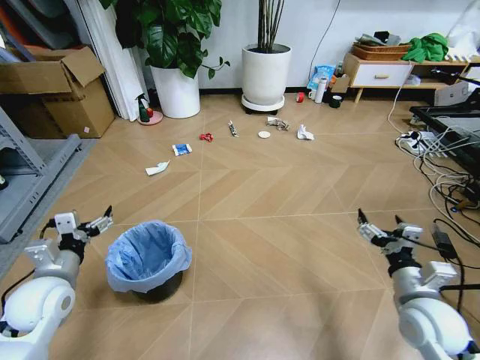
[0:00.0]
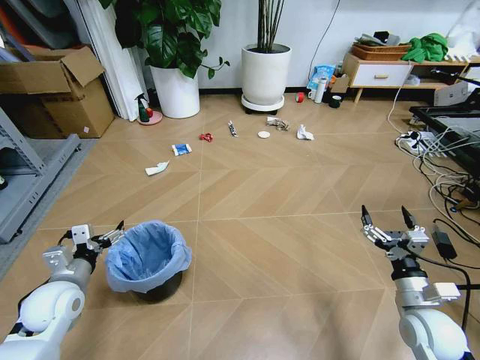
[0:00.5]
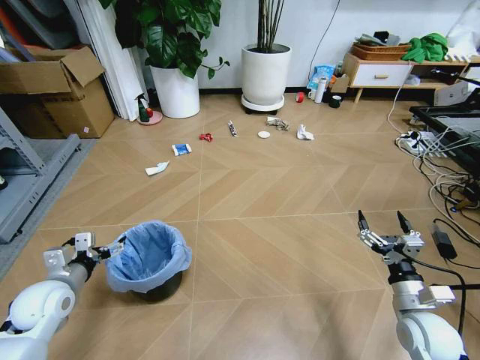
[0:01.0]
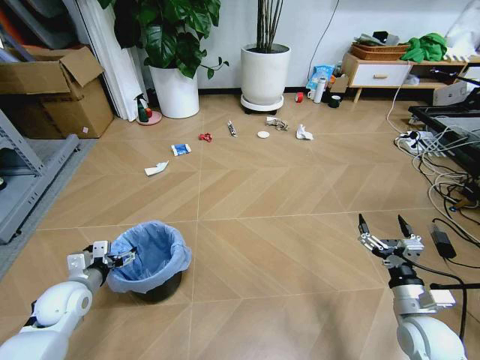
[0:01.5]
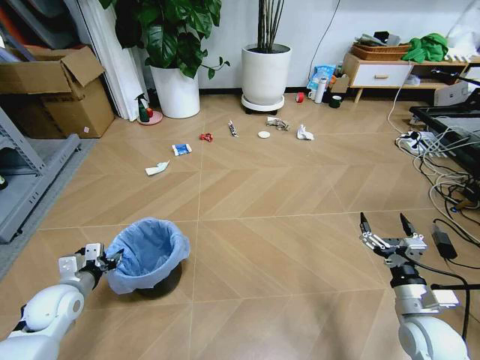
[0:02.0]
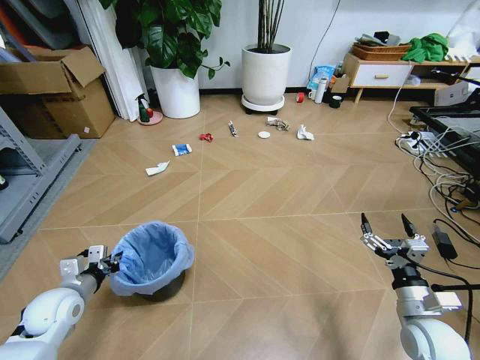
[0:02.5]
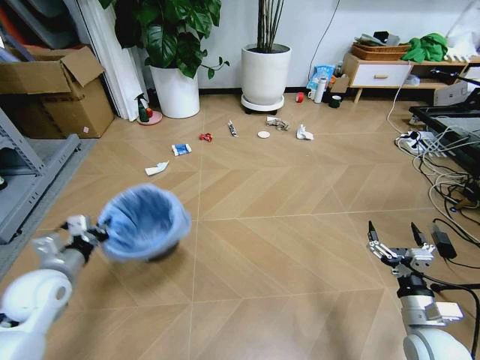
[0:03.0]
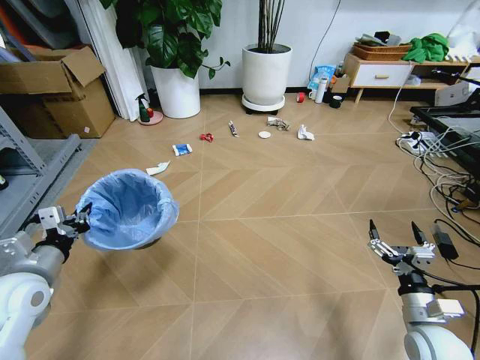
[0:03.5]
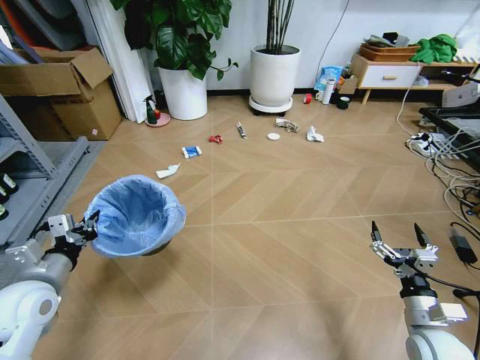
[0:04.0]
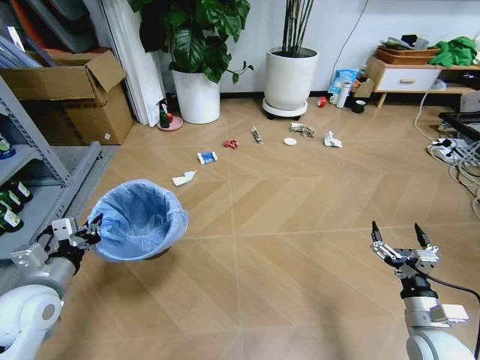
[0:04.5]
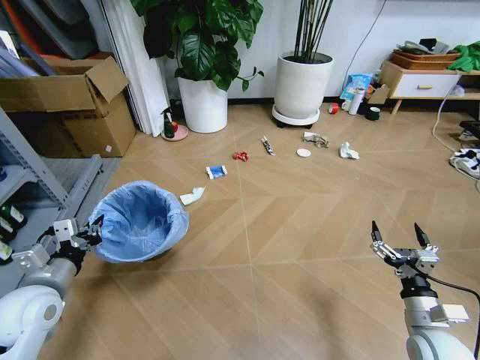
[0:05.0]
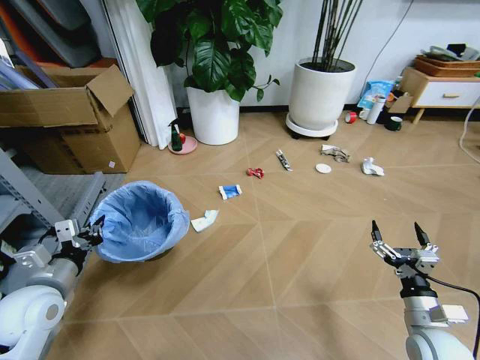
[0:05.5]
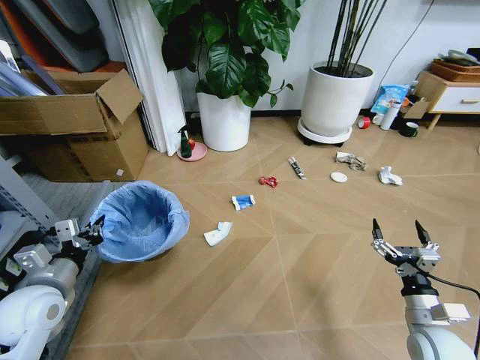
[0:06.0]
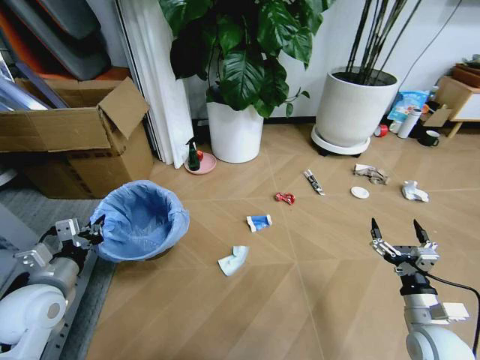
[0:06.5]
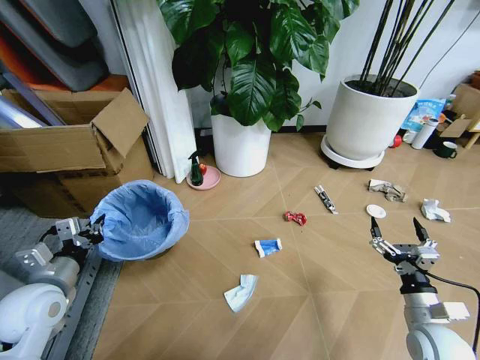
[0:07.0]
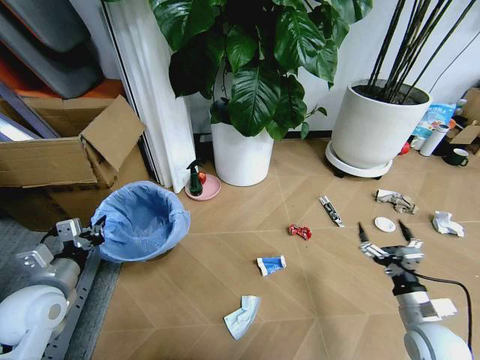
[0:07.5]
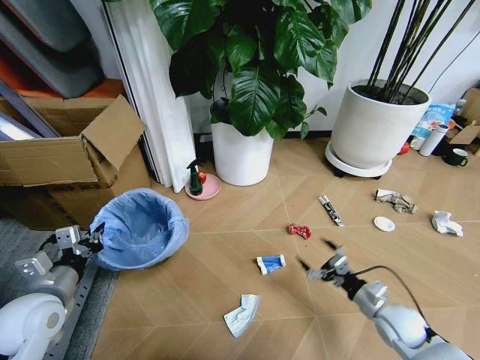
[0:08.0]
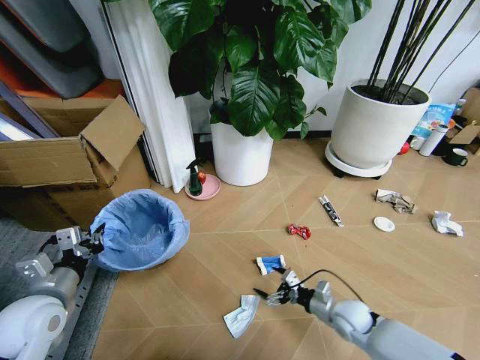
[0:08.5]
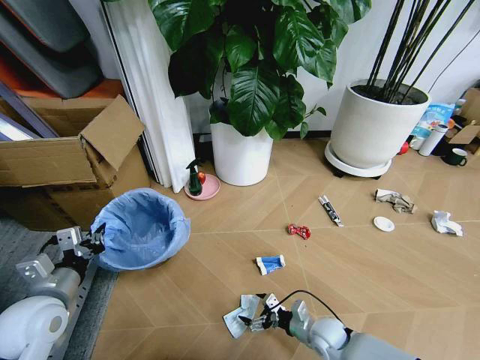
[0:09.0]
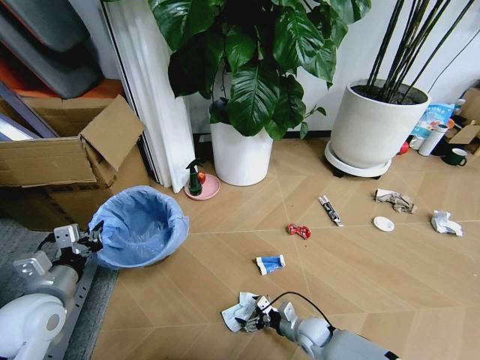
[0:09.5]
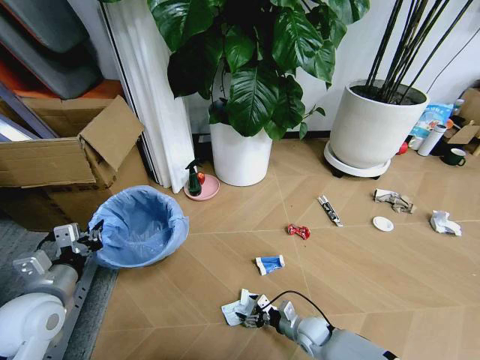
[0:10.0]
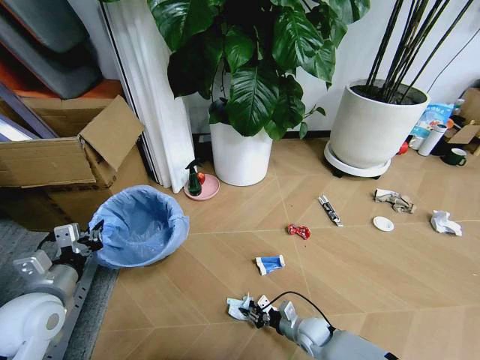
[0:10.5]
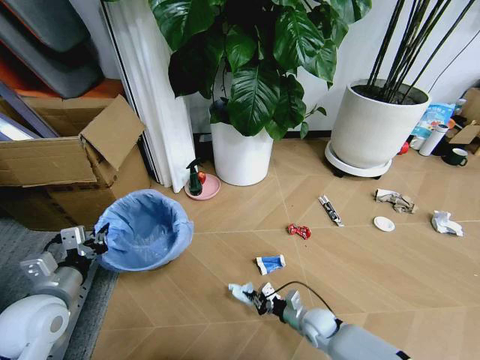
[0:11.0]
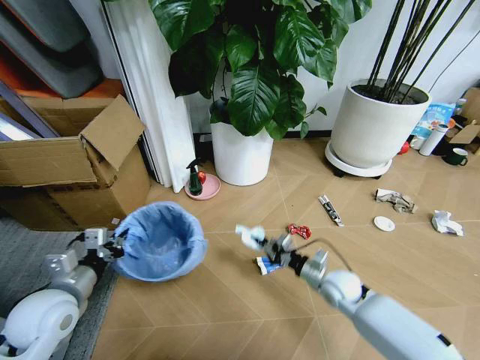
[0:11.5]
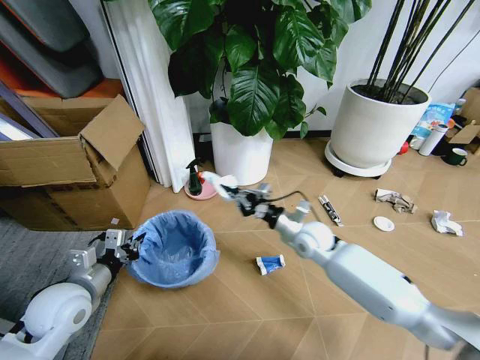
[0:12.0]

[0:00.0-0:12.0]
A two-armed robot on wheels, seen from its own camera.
Task of the whole recording: Pick up the trash bin and place the garbage on the floor into it.
0:02.0 to 0:04.0: The left gripper is displaced upward by roughly 10 cm, and closes its fingers.
0:06.0 to 0:08.0: The right gripper shifts about 10 cm forward and downward.
0:08.0 to 0:10.0: The right gripper moves to the left and downward, some 25 cm.
0:10.0 to 0:12.0: The right gripper is displaced upward and forward by some 30 cm, and closes up.

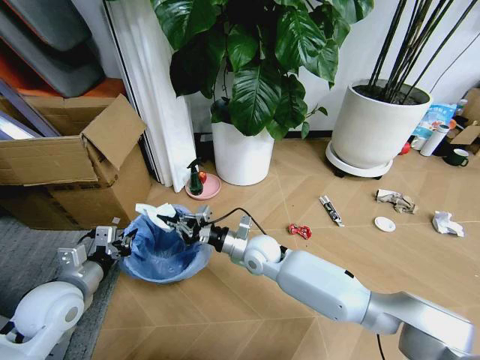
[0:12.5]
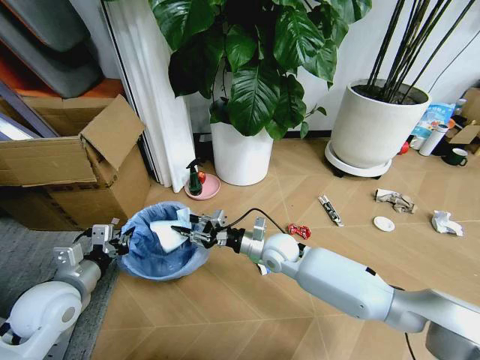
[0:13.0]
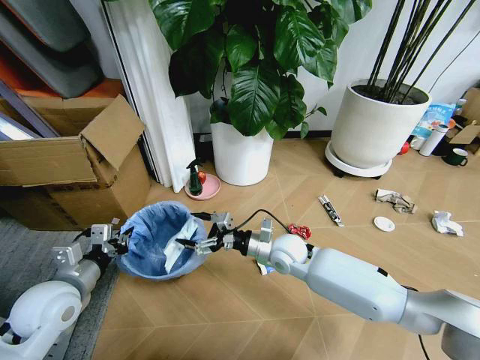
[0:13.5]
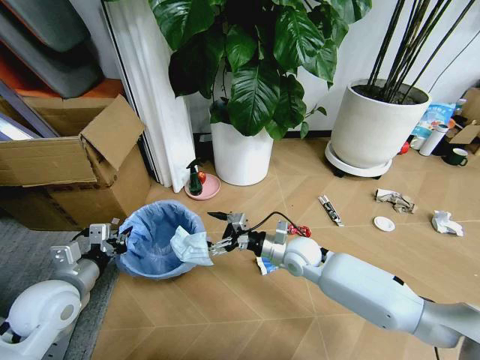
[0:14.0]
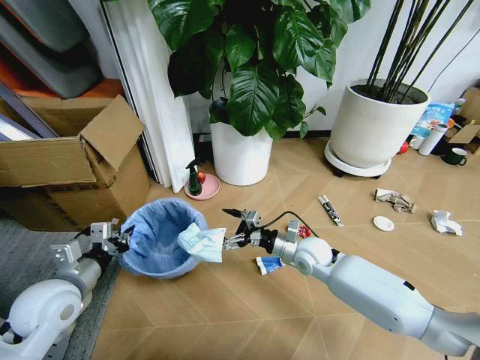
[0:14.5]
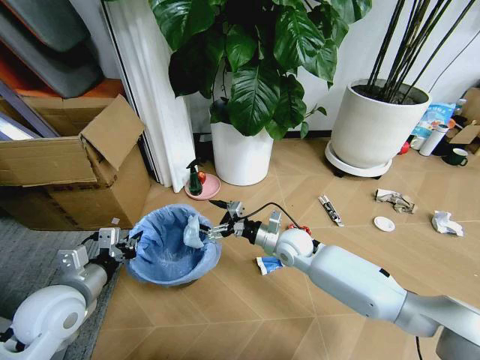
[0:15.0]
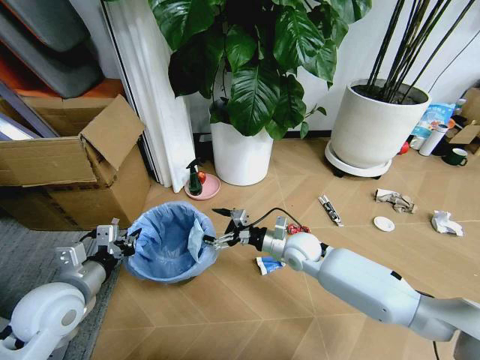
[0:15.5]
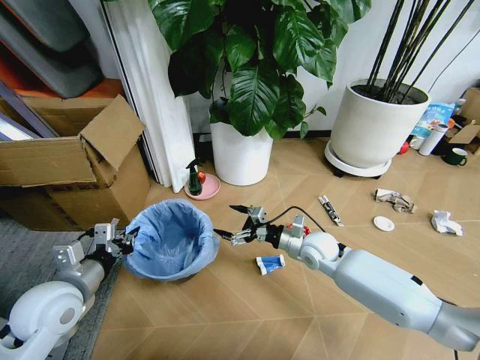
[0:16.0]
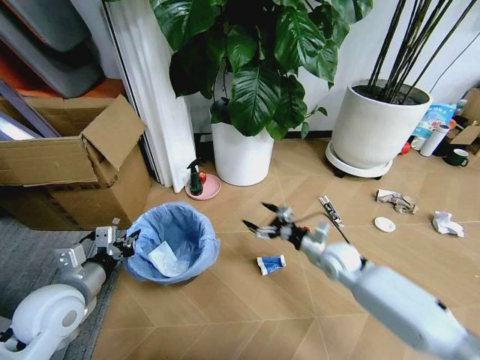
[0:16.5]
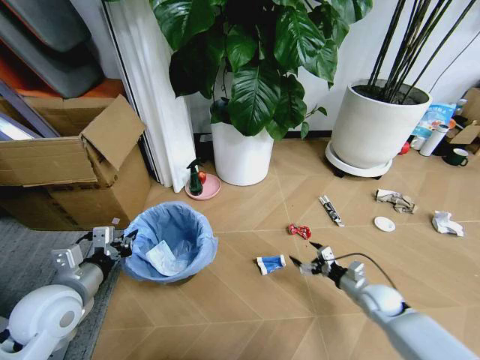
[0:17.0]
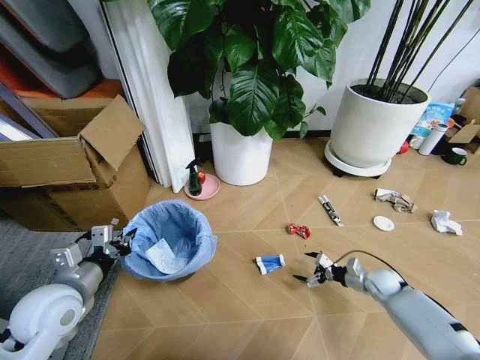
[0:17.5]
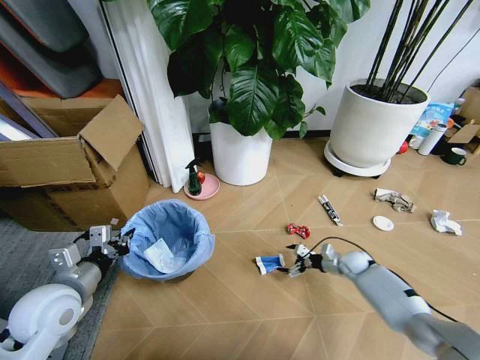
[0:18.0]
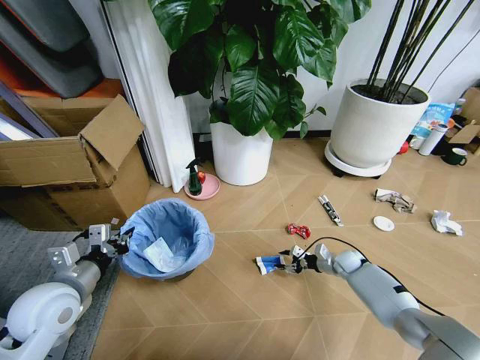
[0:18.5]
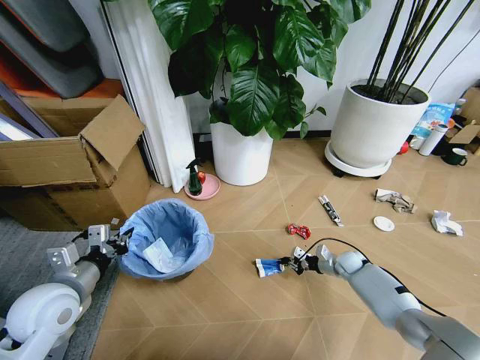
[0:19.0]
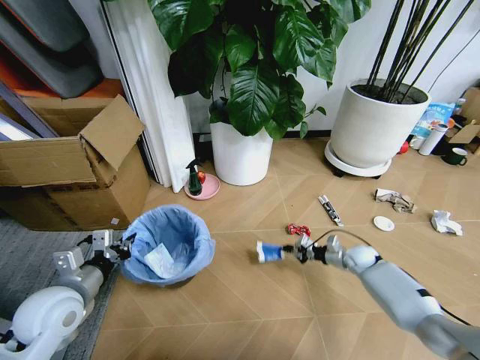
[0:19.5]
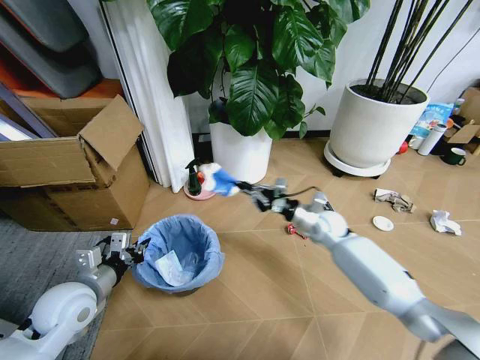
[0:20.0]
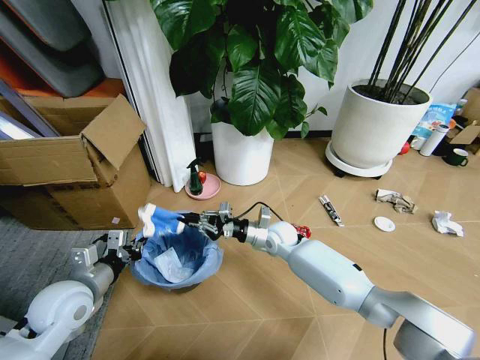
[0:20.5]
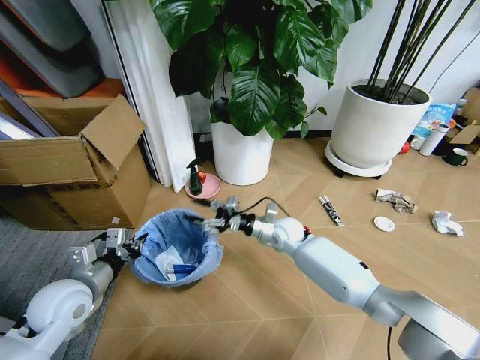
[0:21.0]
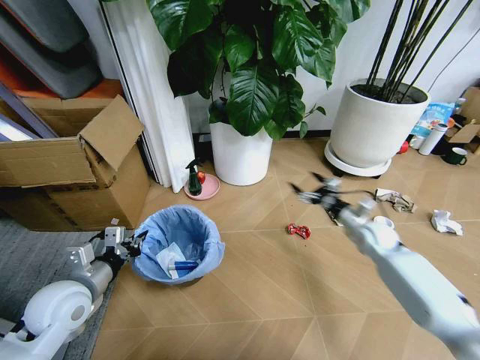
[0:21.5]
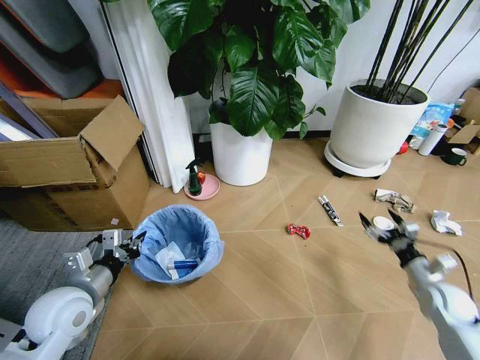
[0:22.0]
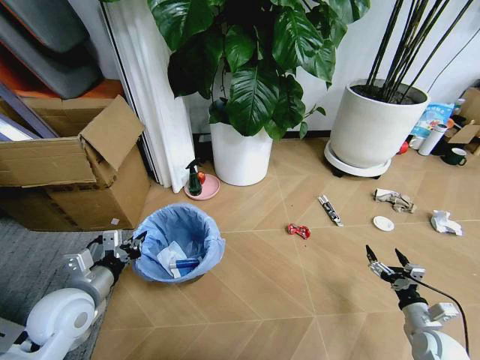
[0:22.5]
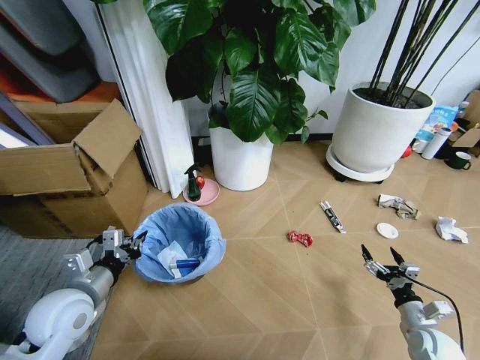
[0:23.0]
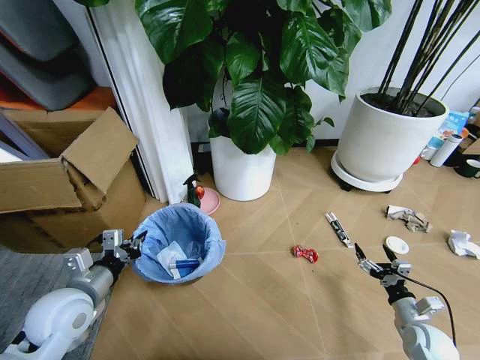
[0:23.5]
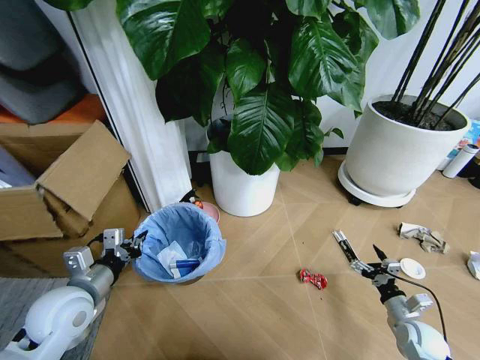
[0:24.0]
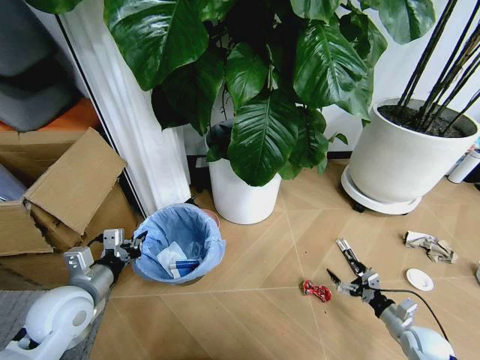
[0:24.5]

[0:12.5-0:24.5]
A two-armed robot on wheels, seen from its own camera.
Task of the whole recording: Pick up the trash bin and place the garbage on the floor into it.
0:12.5 to 0:14.5: The right gripper moves to the right, some 15 cm, and opens its fingers.
0:14.5 to 0:16.5: The right gripper moves to the right, some 10 cm.
0:16.5 to 0:18.5: The right gripper goes about 20 cm downward, to the right and forward, and closes its fingers.
0:18.5 to 0:20.5: The right gripper heads to the left and upward, covering approximately 30 cm, and closes up.
0:20.5 to 0:22.5: The right gripper is displaced to the right and backward by roughly 40 cm, and opens.

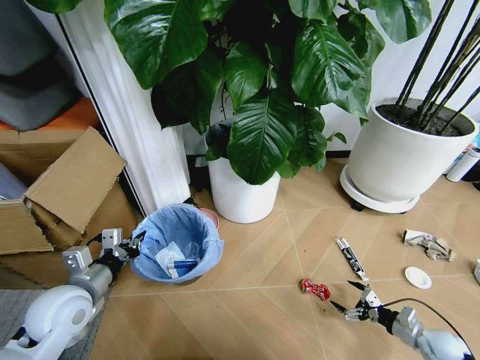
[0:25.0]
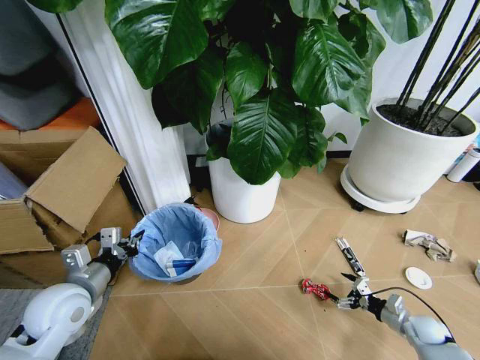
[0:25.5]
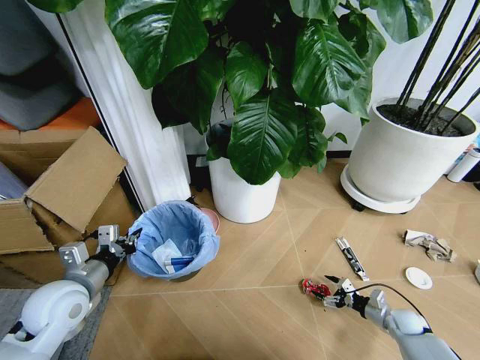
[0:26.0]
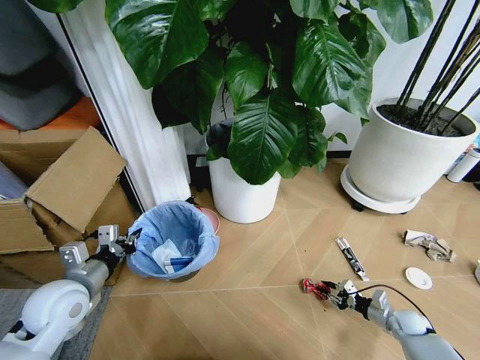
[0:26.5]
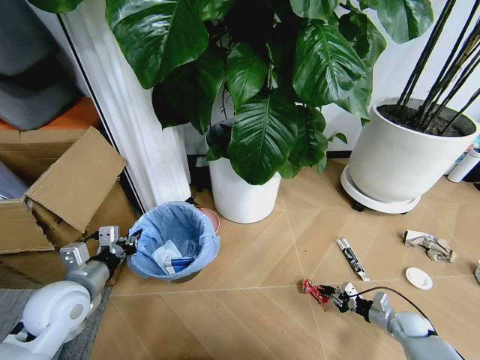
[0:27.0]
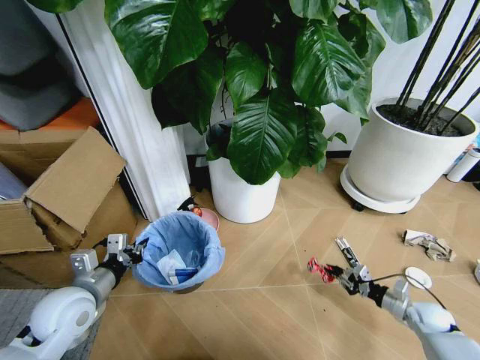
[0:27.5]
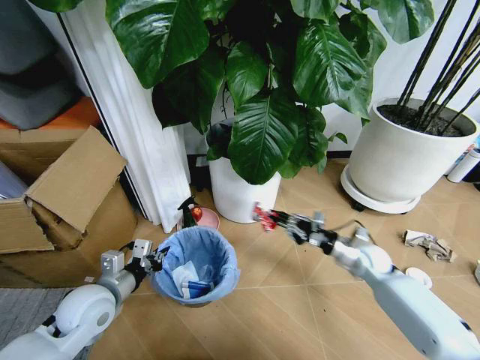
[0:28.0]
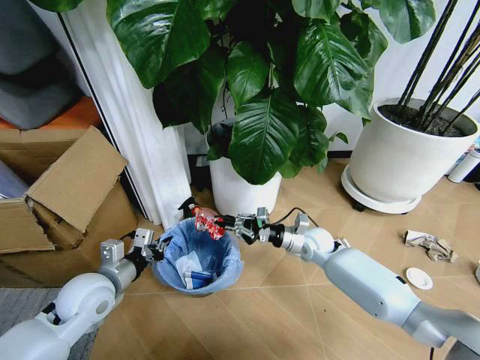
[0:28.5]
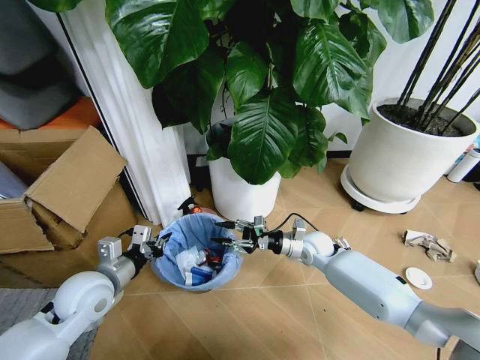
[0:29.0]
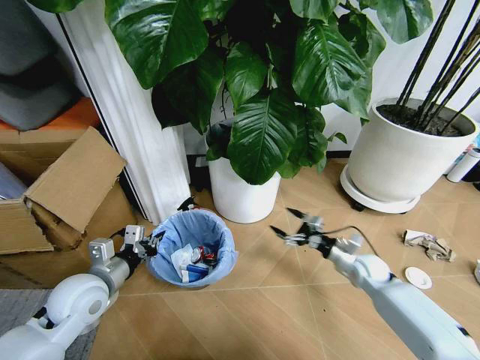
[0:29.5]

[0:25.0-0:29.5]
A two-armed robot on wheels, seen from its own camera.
Task of the whole recording: Pick up the trash bin and place the garbage on the floor into it.
0:25.0 to 0:27.0: The right gripper goes approximately 5 cm forward, and closes its fingers.
0:27.0 to 0:29.5: The right gripper travels upward, to the left and forward by about 25 cm, and opens its fingers.
